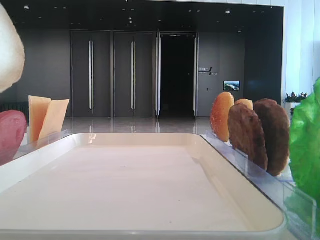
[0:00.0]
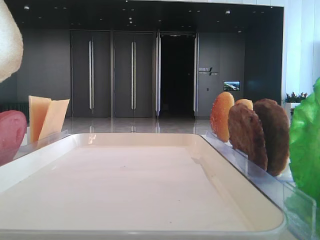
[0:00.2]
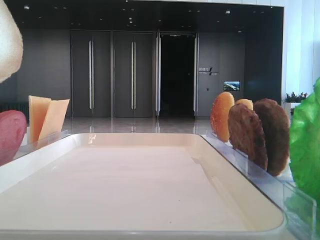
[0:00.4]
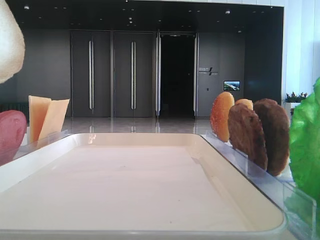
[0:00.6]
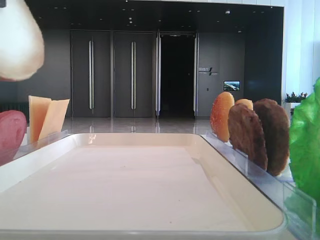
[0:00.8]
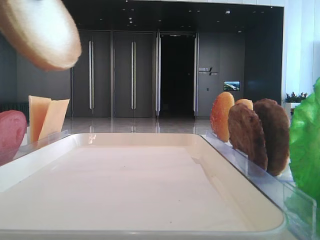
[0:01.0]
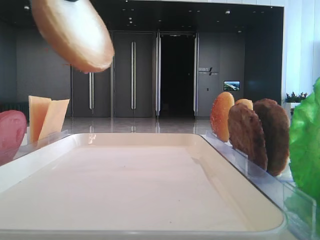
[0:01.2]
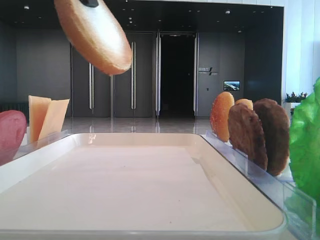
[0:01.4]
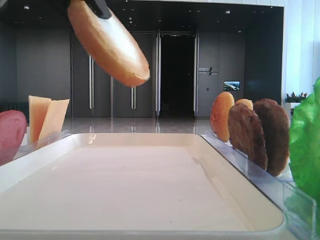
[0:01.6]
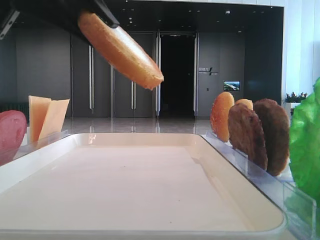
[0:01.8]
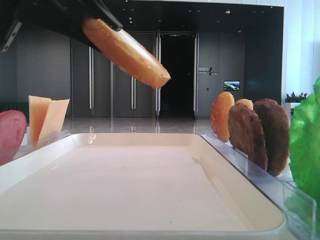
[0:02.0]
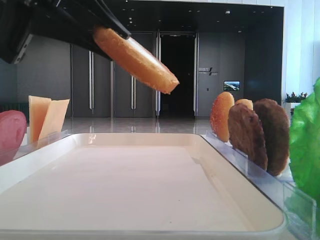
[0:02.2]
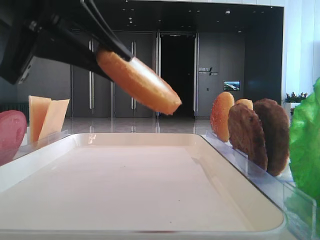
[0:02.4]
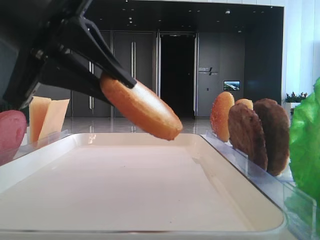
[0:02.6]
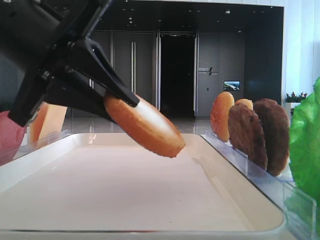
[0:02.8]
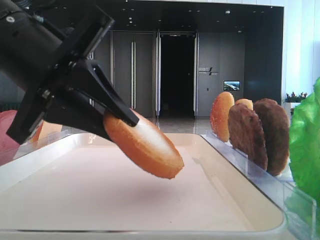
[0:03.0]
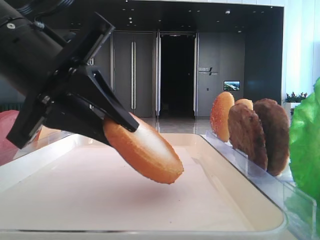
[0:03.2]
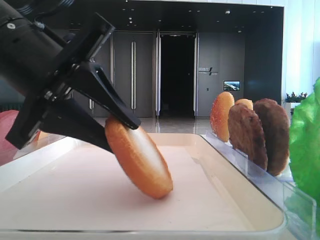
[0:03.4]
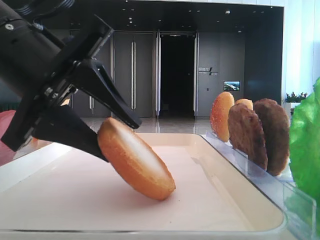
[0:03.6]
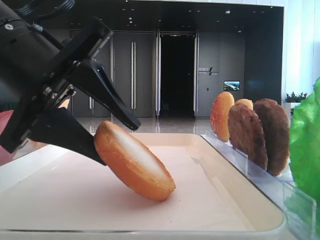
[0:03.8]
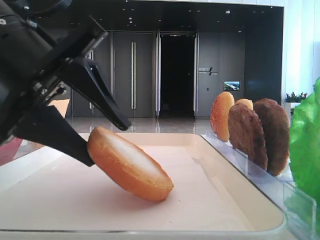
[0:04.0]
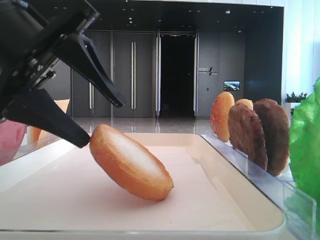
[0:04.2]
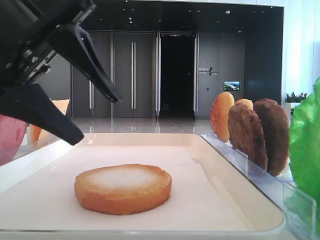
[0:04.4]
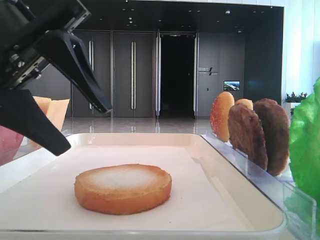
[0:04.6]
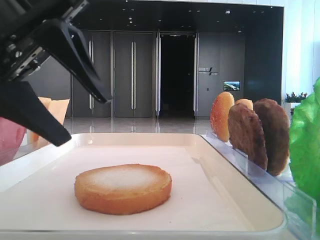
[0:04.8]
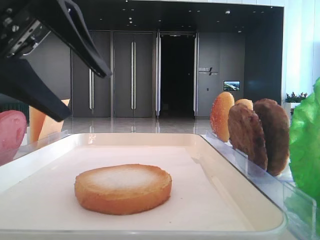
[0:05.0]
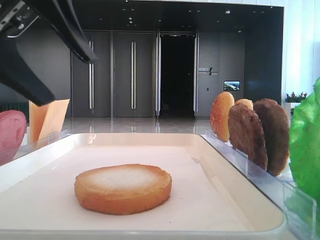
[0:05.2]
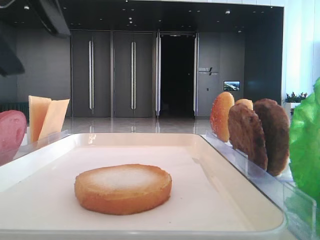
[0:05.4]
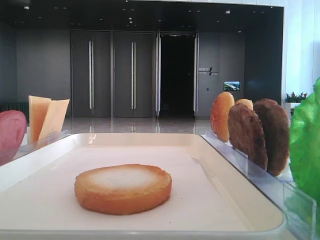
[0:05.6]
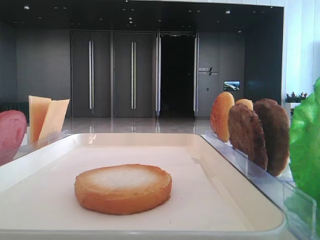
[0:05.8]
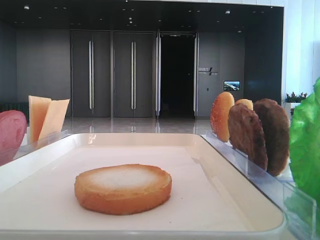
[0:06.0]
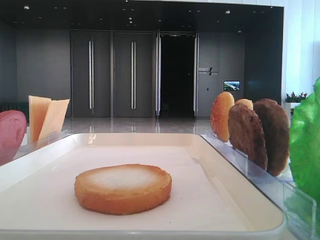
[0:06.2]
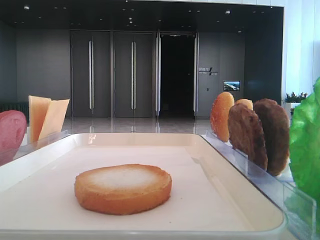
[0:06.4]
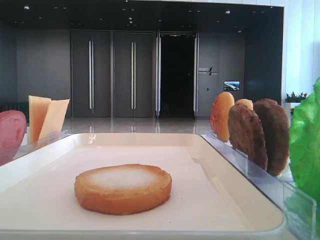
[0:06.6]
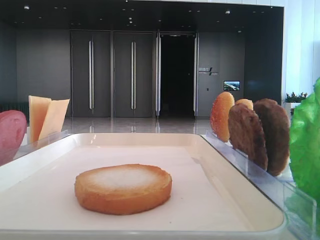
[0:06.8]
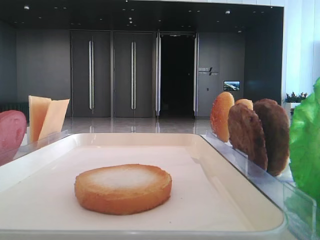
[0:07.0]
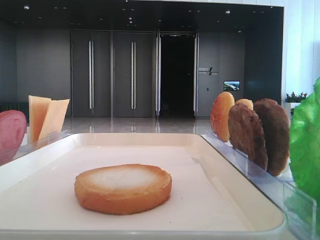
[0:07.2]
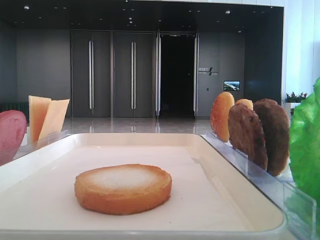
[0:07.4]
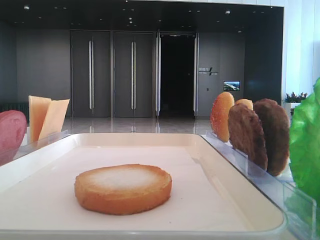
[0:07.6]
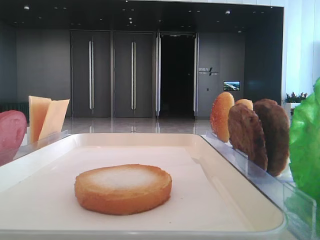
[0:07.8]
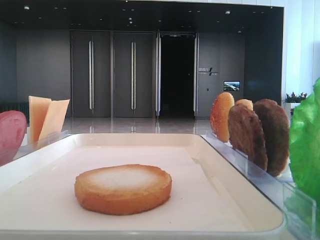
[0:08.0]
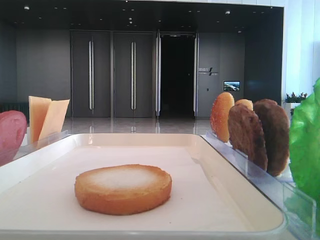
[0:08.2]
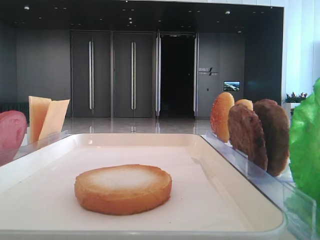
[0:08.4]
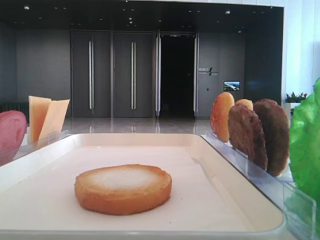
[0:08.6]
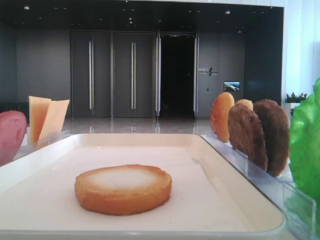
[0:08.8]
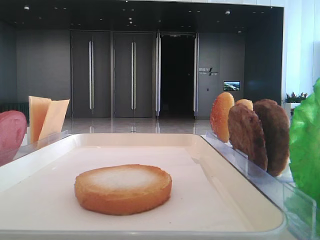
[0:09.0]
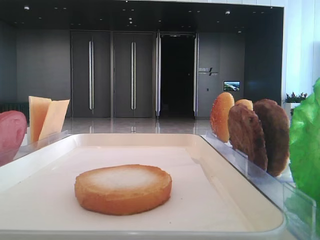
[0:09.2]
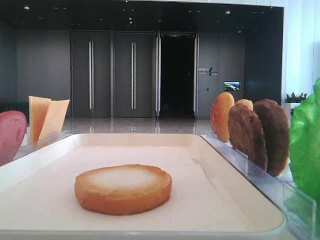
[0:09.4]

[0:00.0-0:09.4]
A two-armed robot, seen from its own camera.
Step, 0:00.0 to 0:04.4: Place the bread on the tray with the left hand.
0:01.6 to 0:03.2: The left gripper goes about 15 cm downward.
0:03.2 to 0:04.8: The left gripper opens.
0:04.8 to 0:06.2: The left gripper goes about 15 cm upward and to the left.

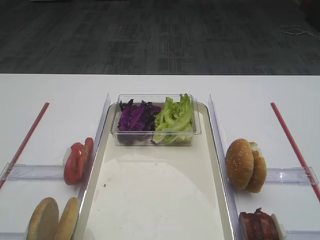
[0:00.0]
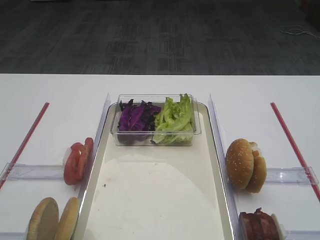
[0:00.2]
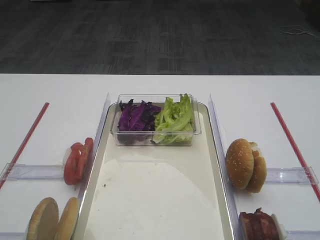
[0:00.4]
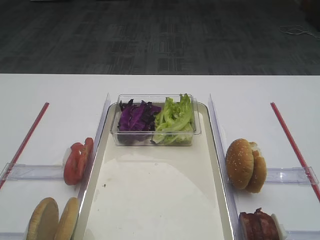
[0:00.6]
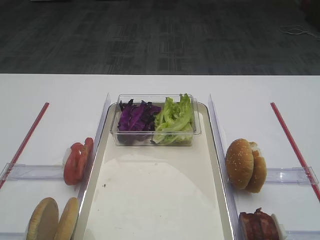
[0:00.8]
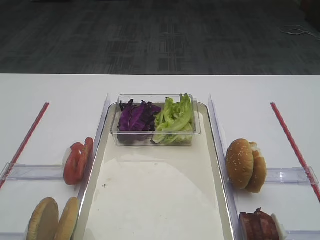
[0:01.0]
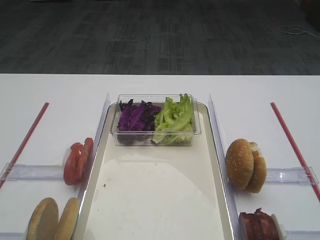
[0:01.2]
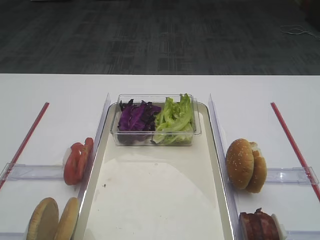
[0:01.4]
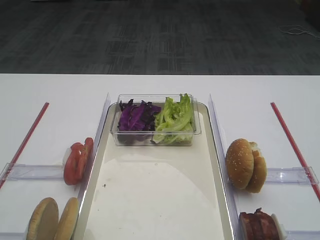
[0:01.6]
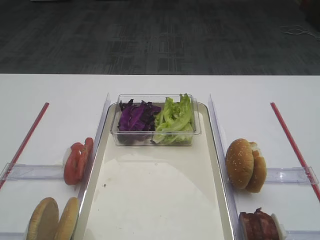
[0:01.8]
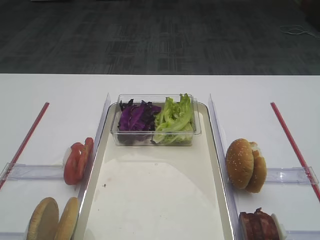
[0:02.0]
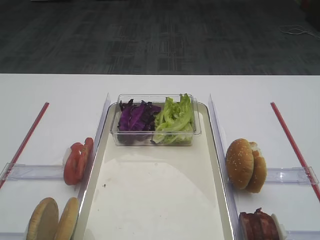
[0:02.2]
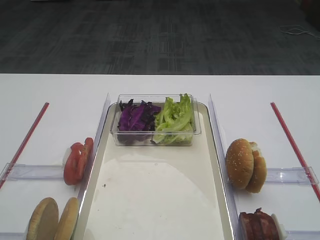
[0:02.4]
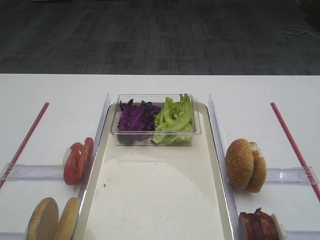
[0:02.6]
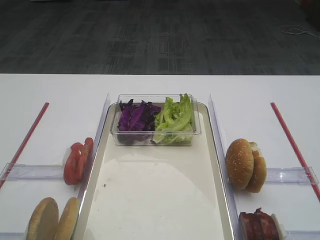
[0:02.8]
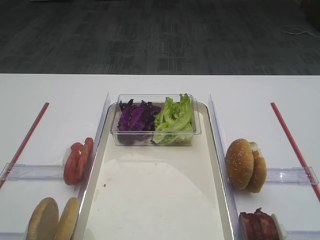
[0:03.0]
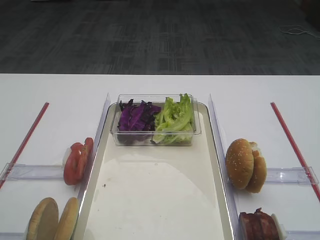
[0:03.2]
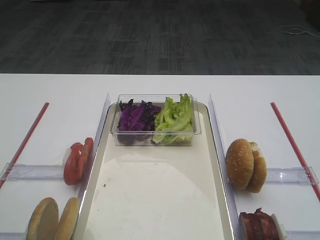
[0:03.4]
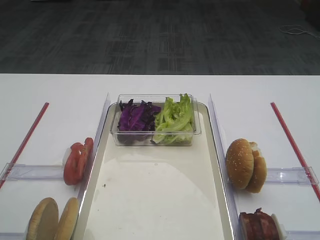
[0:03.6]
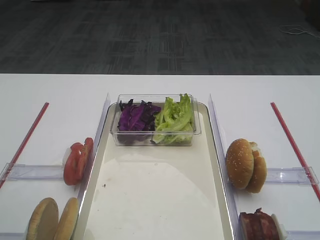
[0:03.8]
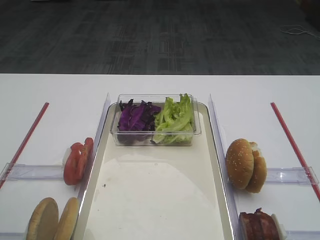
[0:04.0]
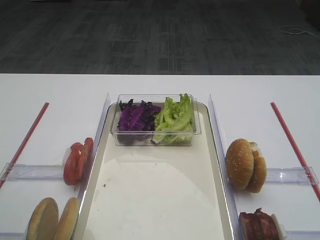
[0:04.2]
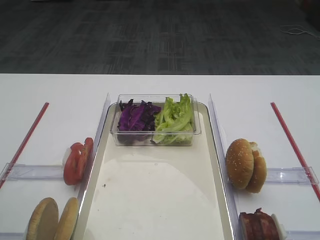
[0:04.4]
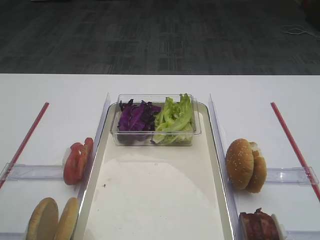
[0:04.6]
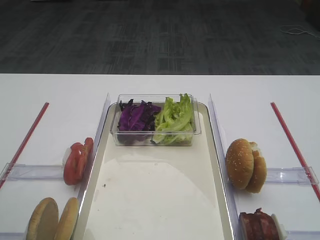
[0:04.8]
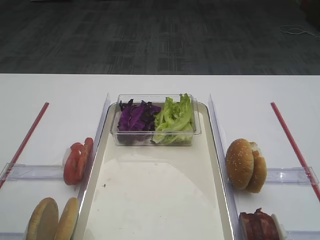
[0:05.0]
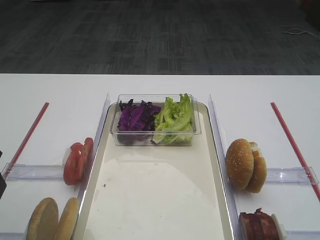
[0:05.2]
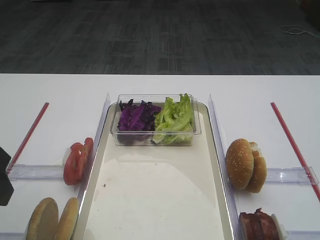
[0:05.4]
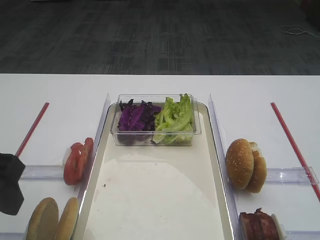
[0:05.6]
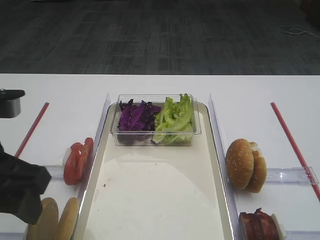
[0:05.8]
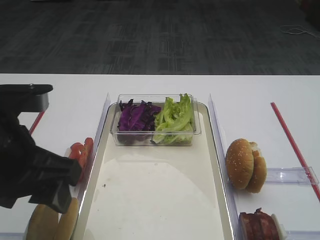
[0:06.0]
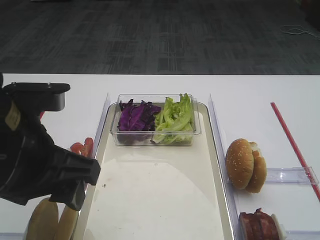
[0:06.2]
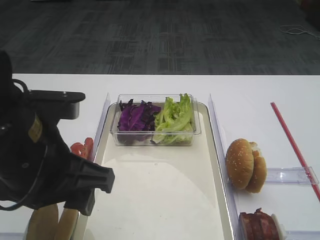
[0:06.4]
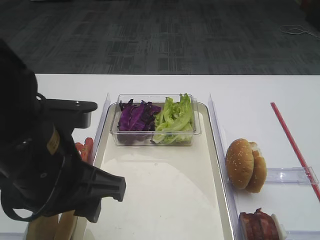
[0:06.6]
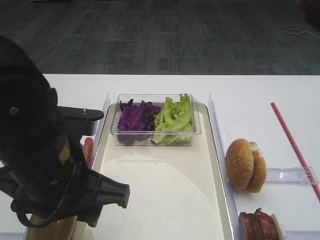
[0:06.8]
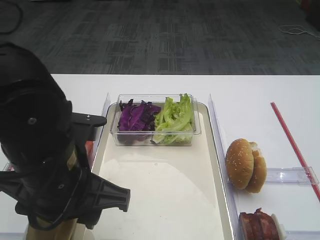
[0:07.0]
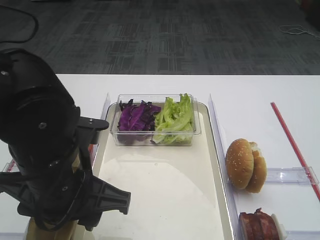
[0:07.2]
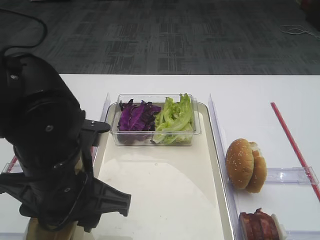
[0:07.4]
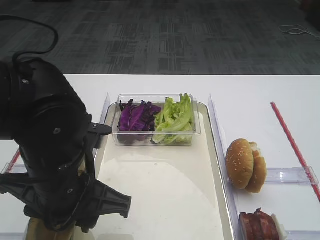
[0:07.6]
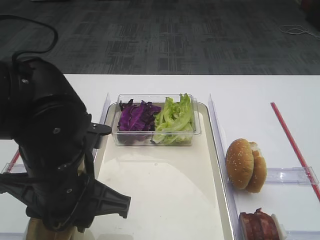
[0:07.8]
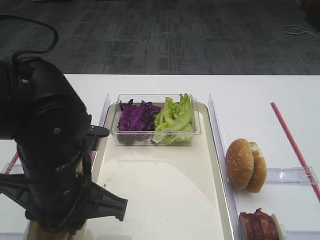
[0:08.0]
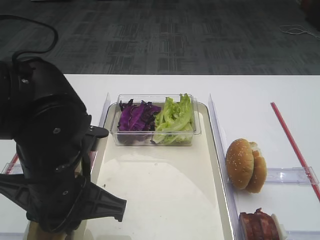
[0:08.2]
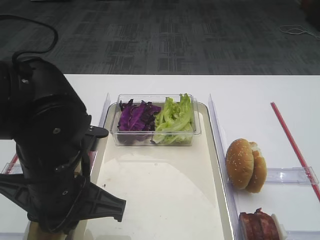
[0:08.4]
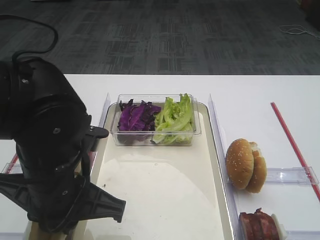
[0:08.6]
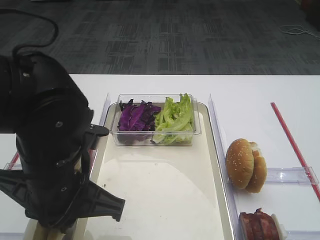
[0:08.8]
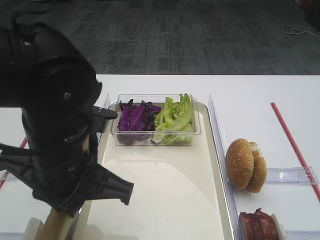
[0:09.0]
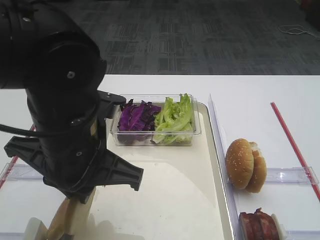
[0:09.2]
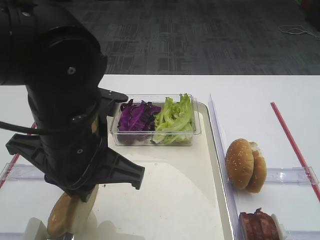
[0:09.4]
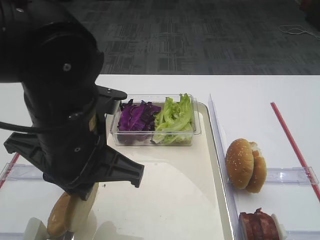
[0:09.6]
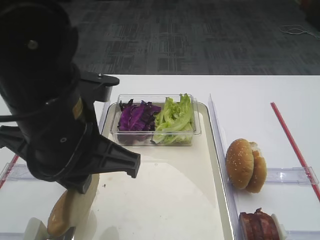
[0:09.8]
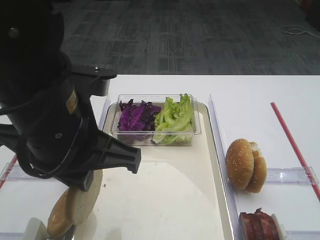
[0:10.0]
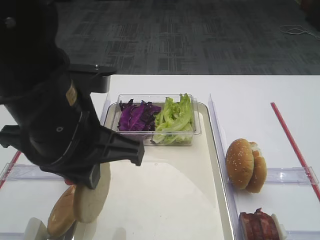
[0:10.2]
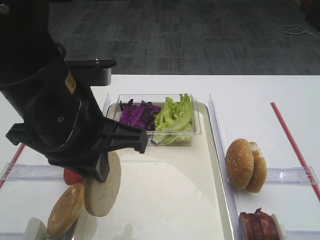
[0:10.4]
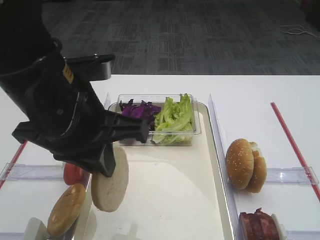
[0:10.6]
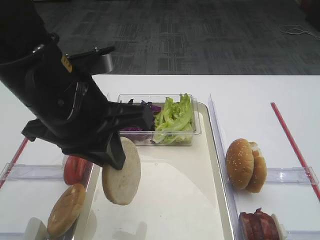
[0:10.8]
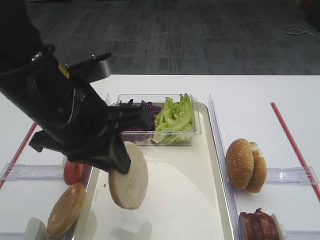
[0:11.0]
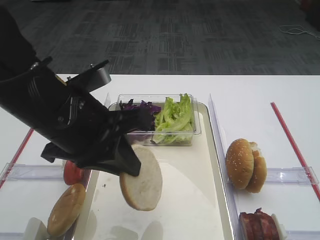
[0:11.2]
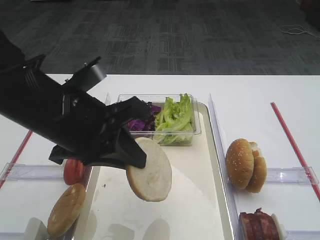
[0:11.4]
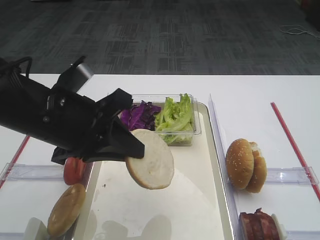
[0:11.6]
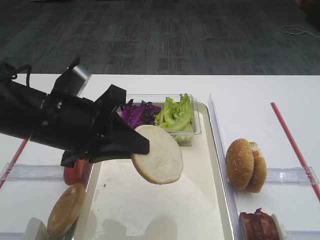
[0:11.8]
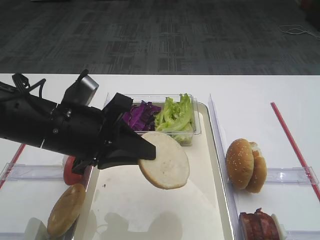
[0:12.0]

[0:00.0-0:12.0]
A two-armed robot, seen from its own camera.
Step, 0:00.0 to 0:08.8: Pick up the bread slice with the left gripper.
0:04.4 to 0:06.0: The left gripper is displaced to the right by approximately 10 cm.
0:06.0 to 0:07.6: The left gripper goes some 10 cm to the right and downward.
0:07.6 to 0:09.0: The left gripper closes its fingers.
0:09.0 to 0:10.4: The left gripper travels upward by approximately 5 cm.
0:10.4 to 0:12.0: The left gripper travels downward by approximately 5 cm.

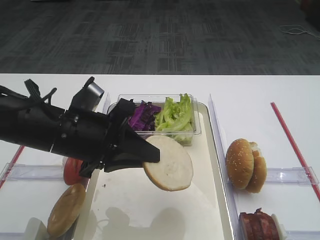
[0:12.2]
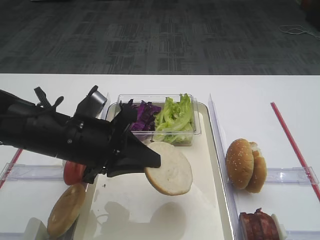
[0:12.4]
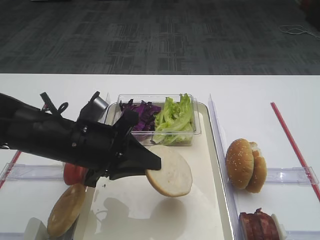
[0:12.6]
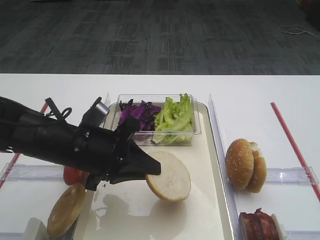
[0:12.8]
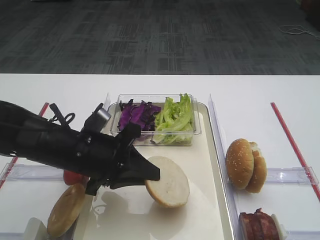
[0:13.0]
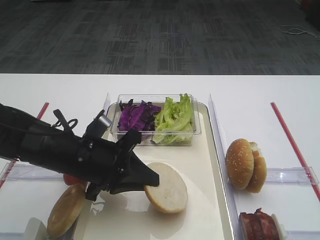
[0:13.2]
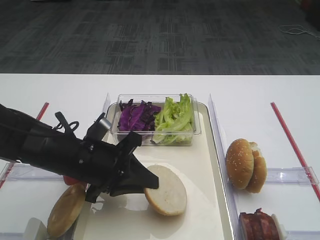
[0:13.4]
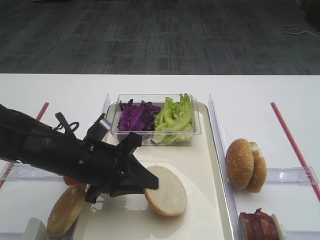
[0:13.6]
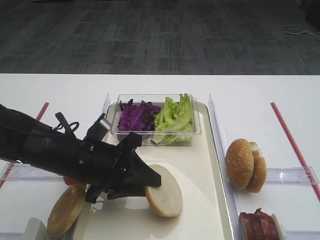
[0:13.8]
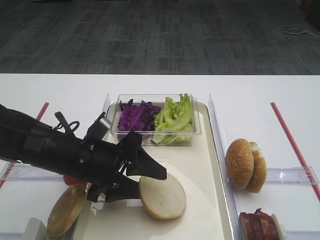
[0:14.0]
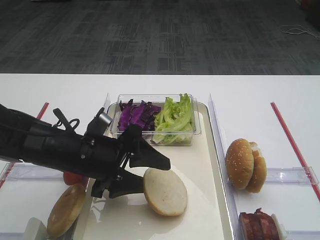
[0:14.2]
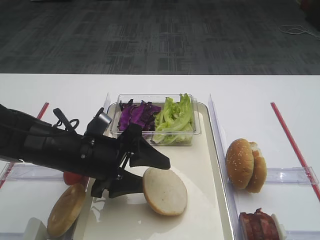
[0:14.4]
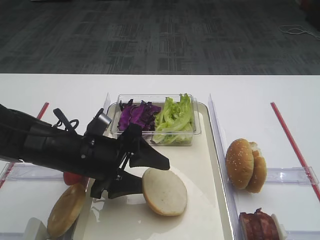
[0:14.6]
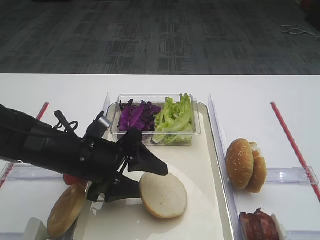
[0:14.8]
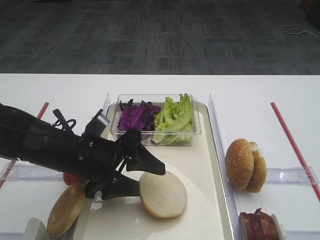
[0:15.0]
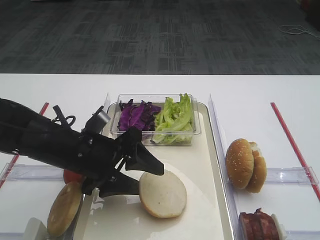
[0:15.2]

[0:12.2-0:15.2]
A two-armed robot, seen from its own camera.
0:12.2 to 0:13.8: The left gripper travels downward by approximately 5 cm.
0:13.8 to 0:15.2: The left gripper opens its fingers.
